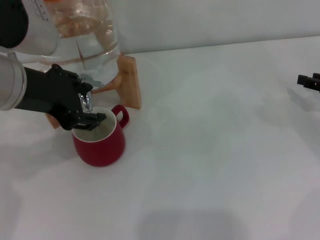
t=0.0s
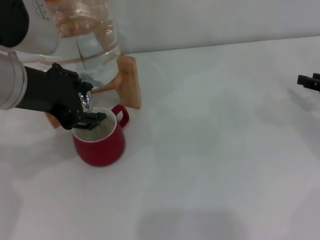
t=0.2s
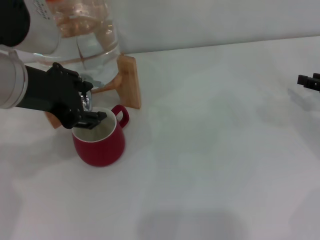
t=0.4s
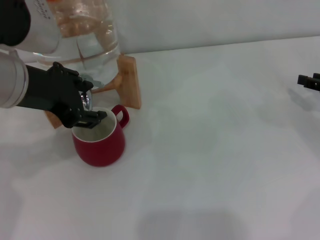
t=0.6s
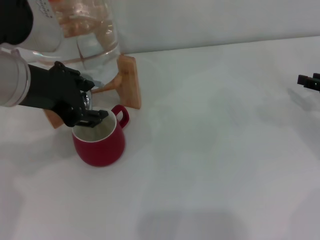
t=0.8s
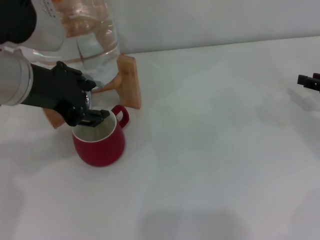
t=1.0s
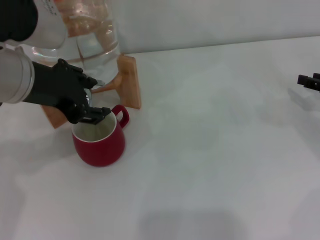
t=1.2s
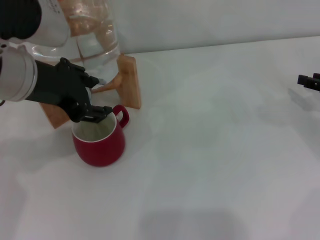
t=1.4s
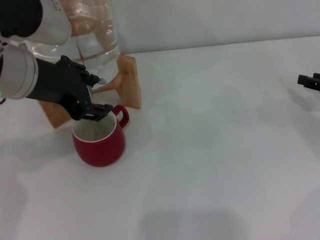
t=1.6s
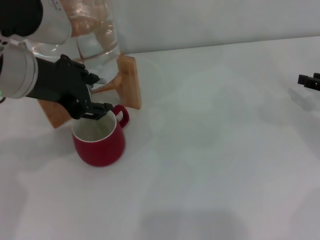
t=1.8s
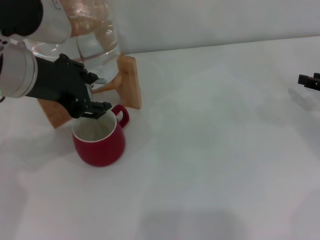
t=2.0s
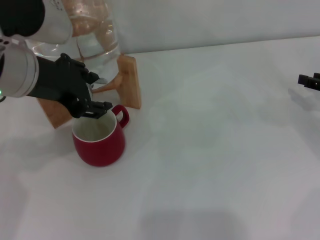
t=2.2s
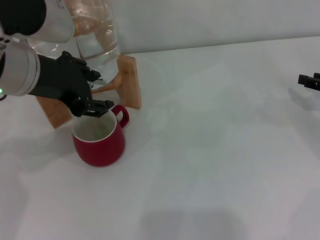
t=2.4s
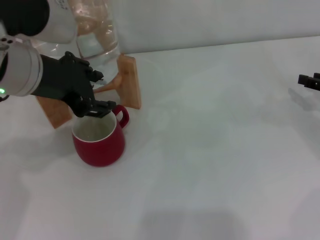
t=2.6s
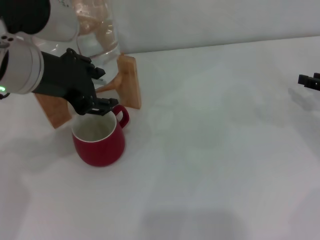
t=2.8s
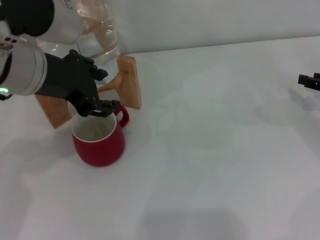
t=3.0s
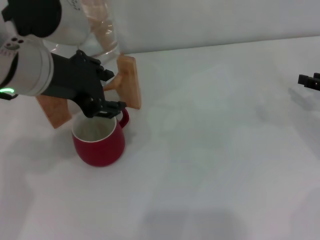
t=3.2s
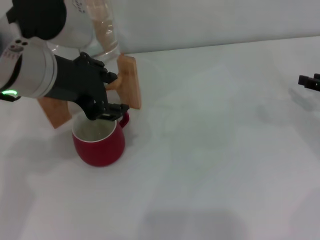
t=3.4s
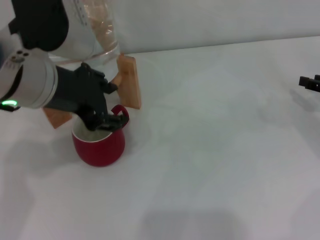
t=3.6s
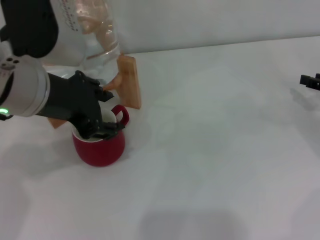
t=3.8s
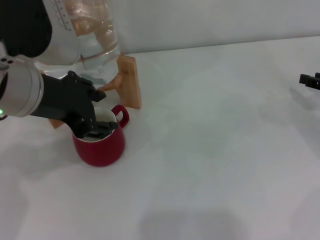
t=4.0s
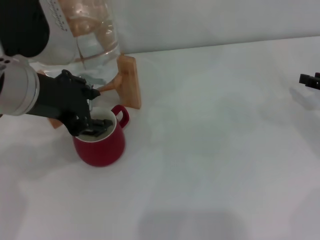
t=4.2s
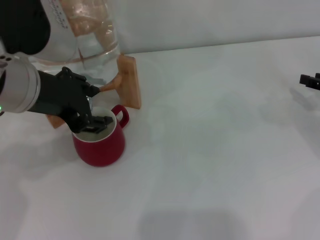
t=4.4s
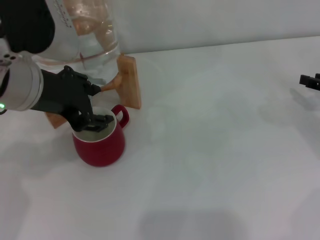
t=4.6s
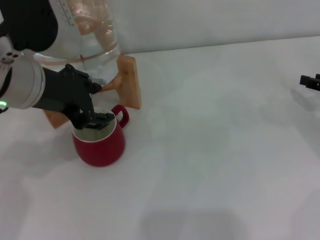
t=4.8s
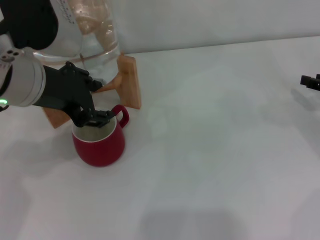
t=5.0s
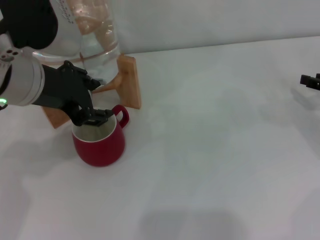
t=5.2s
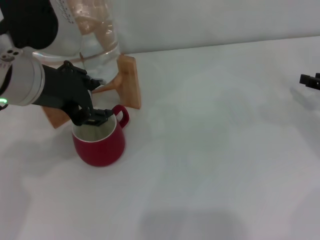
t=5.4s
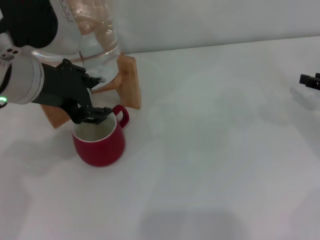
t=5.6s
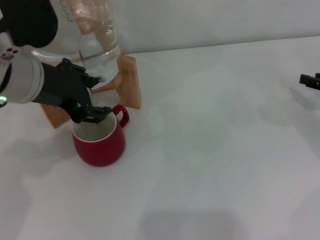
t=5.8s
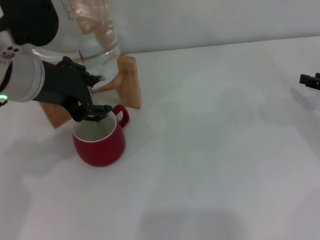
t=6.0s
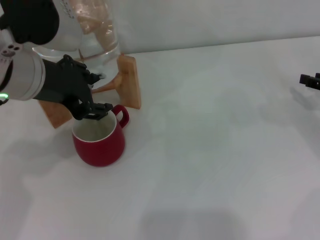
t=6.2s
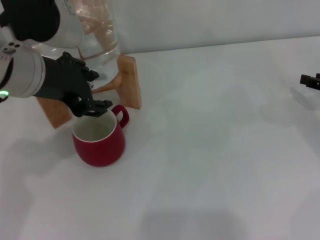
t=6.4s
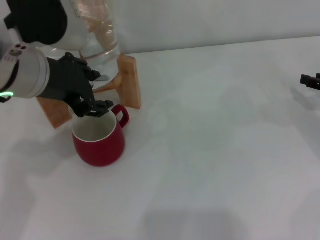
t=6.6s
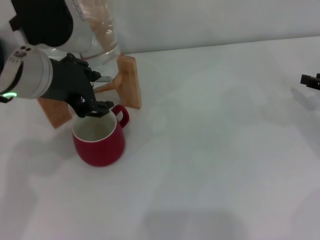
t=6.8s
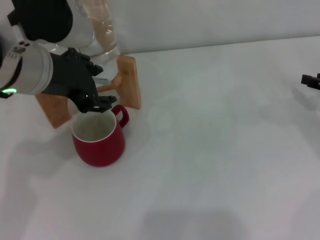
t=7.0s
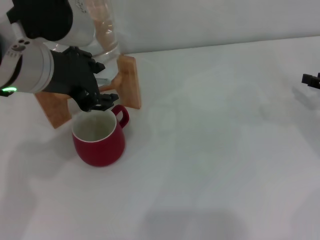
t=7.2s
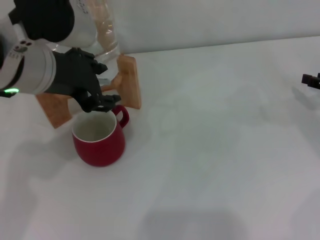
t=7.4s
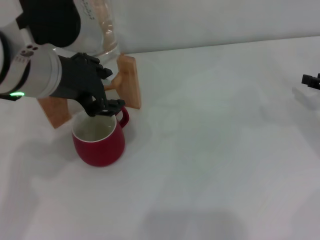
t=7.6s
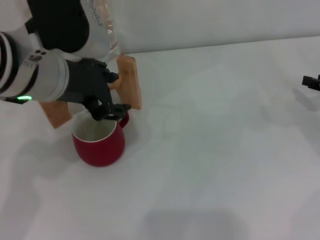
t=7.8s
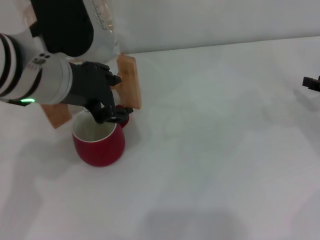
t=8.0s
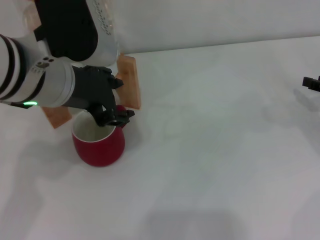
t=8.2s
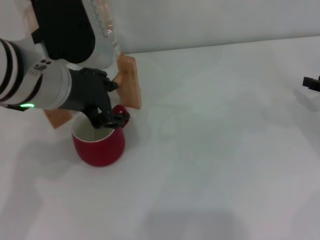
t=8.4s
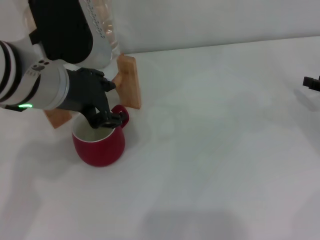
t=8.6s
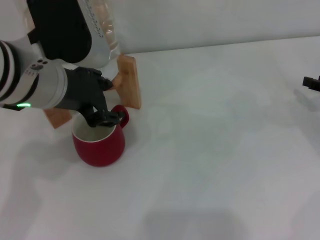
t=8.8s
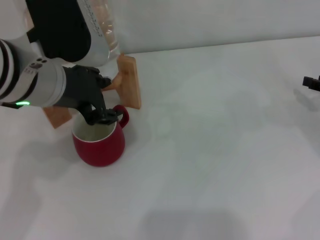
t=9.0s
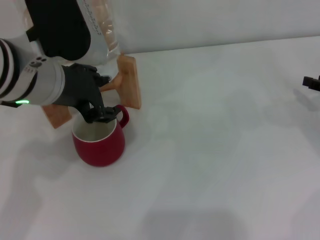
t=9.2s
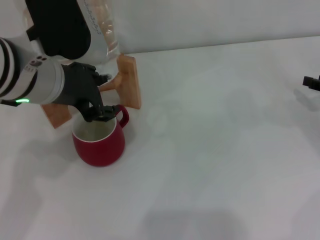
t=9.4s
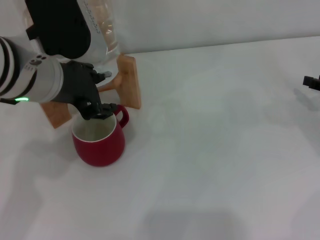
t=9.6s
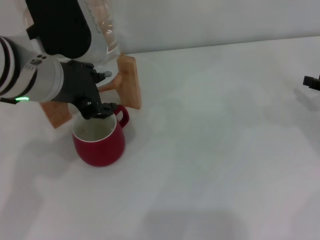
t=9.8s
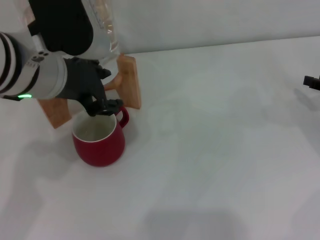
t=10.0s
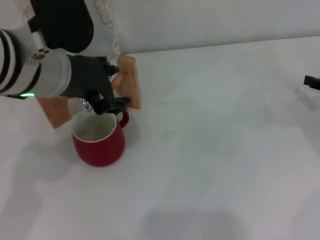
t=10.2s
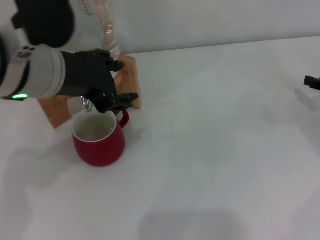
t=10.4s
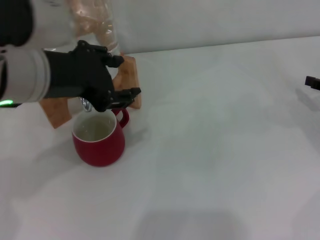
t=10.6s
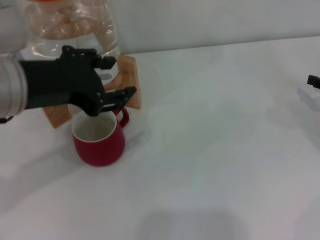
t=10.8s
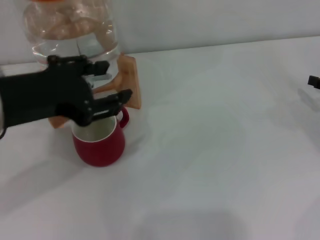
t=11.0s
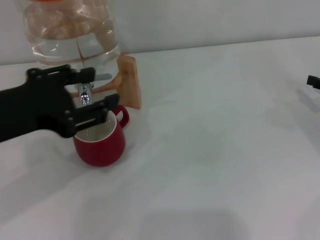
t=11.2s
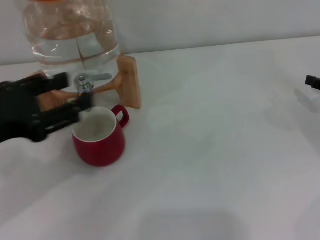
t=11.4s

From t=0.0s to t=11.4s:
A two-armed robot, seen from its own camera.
Task of the whole recording: the right gripper pick up the red cup and place it horizontally under the faucet, the left gripper turn on the faucet to fill the cup, and then turn off the faucet.
Step, from t=0.0s to t=11.2s: Close the dispenser valve with the left gripper.
From t=0.0s to t=1.4s: The grippers make only small movements.
From t=1.4s to t=2.8s: Both grippers stay about where they are.
From t=2.8s to t=4.2s: The grippers make only small movements.
From t=4.2s to t=5.6s: Both grippers stay about where they are.
From t=5.6s to t=8.6s: The grippers stay close to where they were, moving slightly.
From t=8.6s to t=10.0s: The two grippers keep their place.
From t=10.0s to t=11.4s: The left gripper shifts roughly 15 cm to the left and backward.

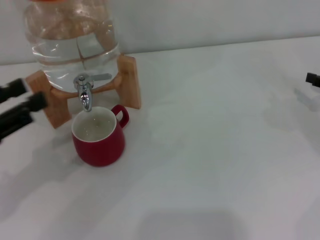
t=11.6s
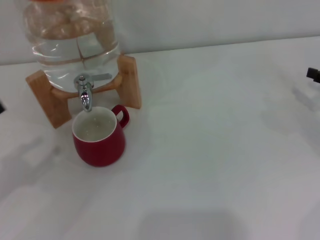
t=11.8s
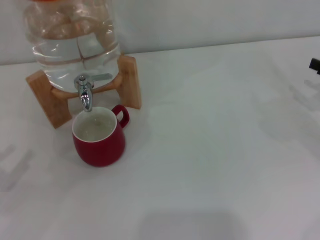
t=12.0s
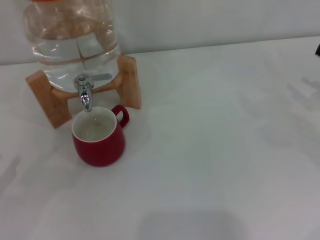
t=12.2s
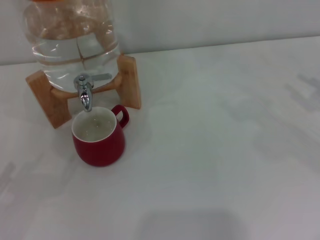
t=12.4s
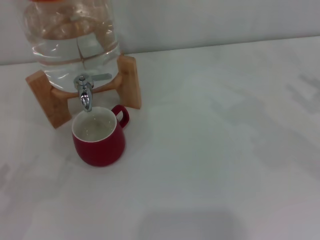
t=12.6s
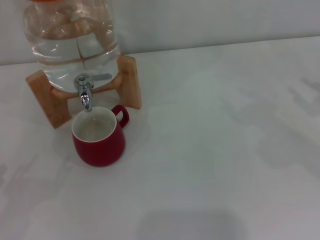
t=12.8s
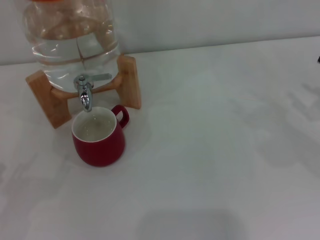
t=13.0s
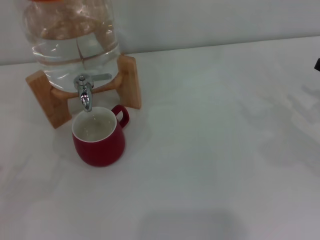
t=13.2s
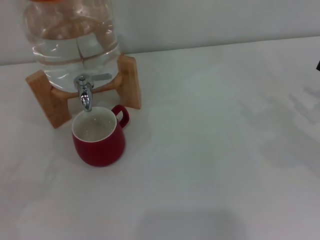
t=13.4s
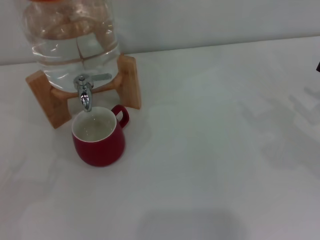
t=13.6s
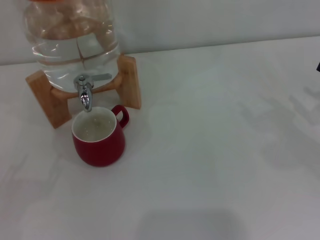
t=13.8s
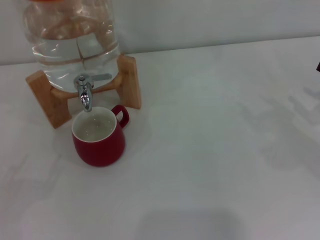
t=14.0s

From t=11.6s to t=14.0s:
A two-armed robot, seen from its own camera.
Task of the whole recording: the right gripper pick up the red cup and place it horizontally under the faucet, the left gripper turn on the faucet to fill the cup, and then turn off the faucet.
From t=11.6s to t=12.8s: The left gripper moves downward and to the left, some 15 cm.
